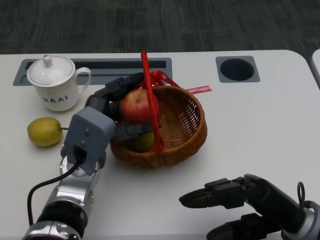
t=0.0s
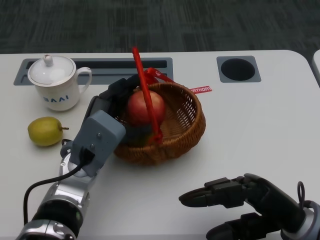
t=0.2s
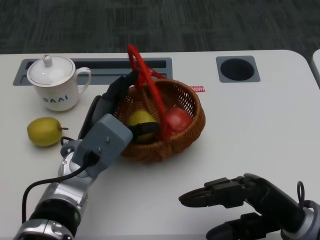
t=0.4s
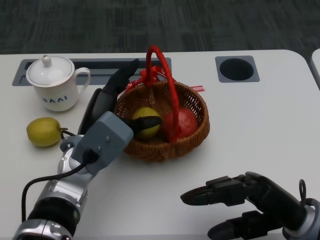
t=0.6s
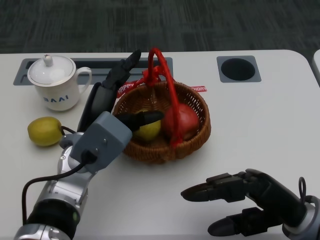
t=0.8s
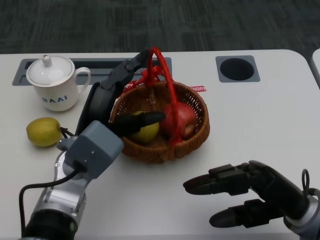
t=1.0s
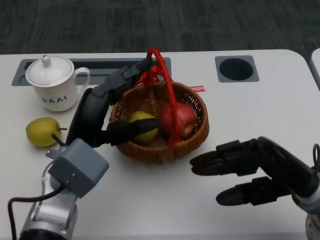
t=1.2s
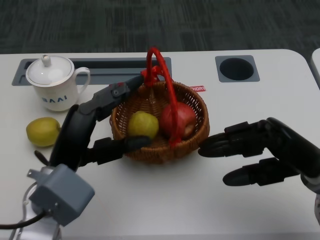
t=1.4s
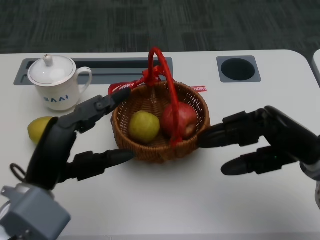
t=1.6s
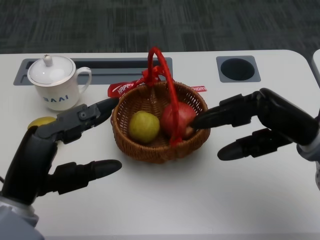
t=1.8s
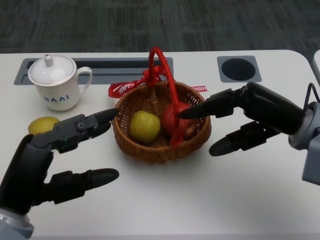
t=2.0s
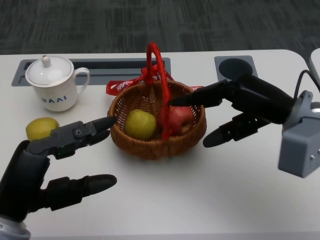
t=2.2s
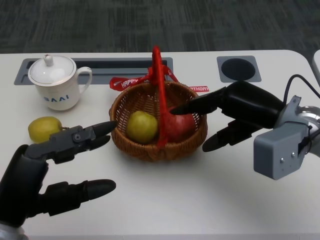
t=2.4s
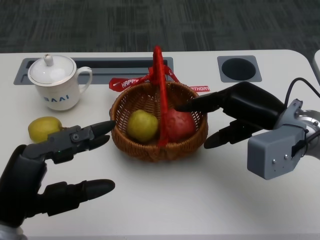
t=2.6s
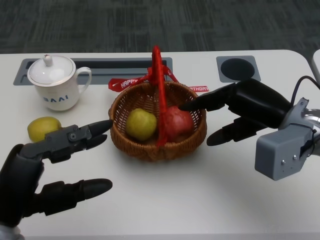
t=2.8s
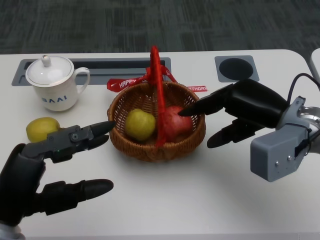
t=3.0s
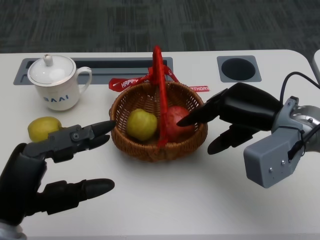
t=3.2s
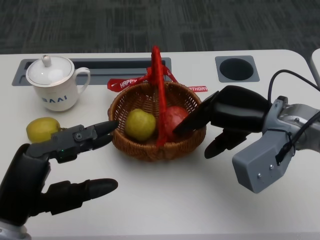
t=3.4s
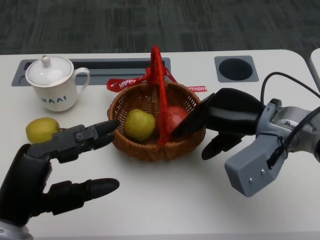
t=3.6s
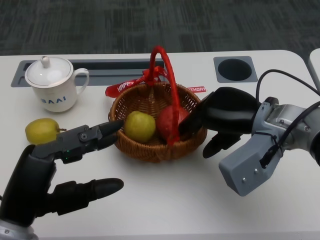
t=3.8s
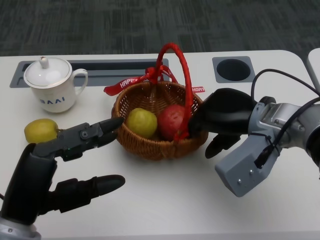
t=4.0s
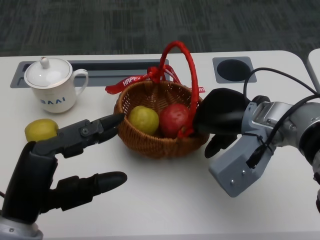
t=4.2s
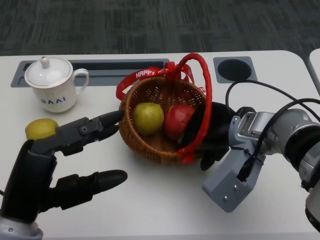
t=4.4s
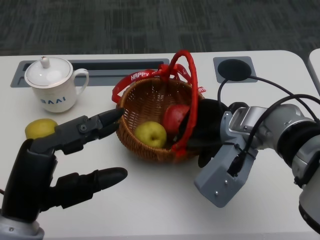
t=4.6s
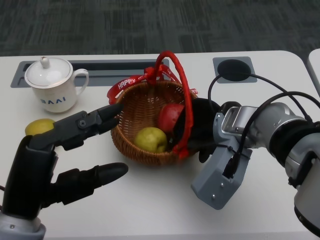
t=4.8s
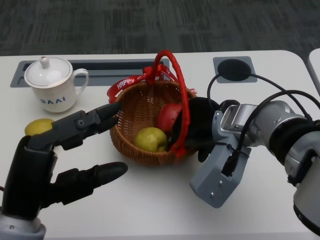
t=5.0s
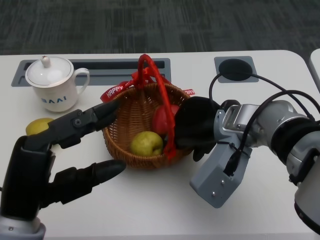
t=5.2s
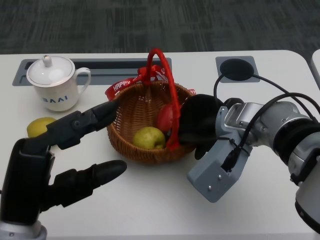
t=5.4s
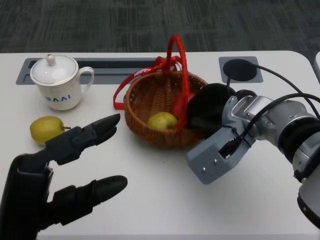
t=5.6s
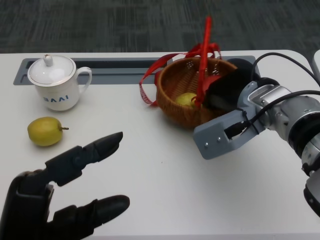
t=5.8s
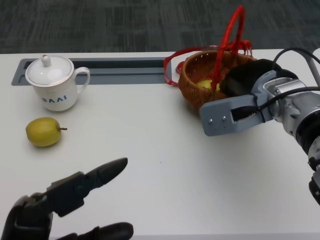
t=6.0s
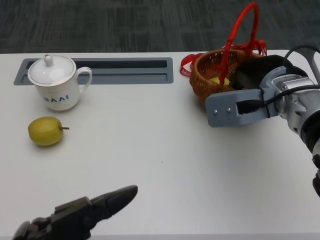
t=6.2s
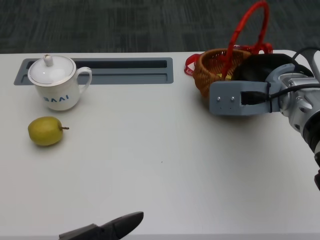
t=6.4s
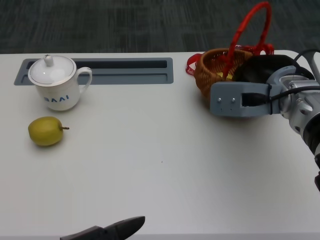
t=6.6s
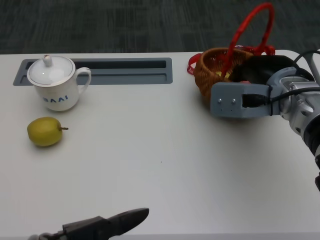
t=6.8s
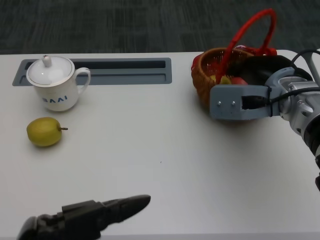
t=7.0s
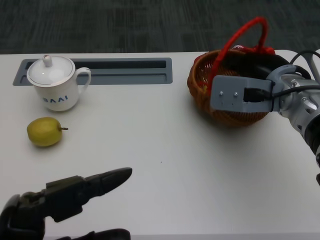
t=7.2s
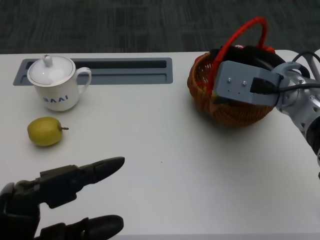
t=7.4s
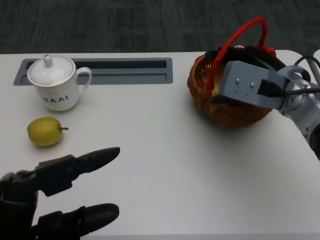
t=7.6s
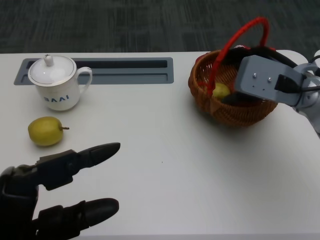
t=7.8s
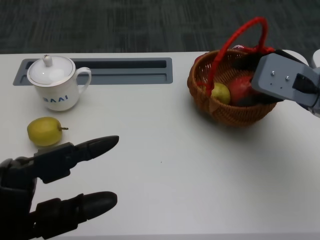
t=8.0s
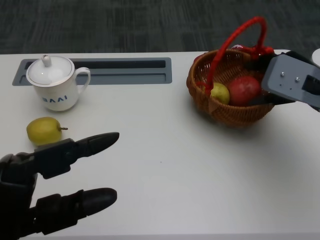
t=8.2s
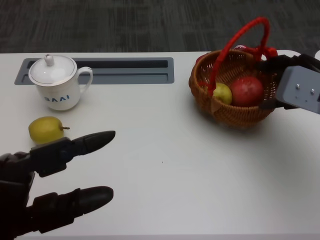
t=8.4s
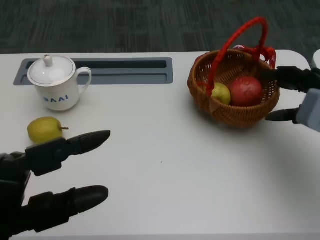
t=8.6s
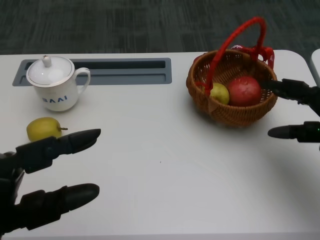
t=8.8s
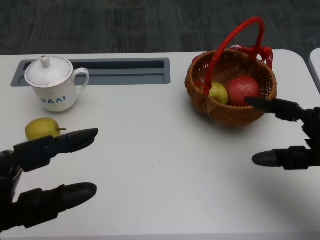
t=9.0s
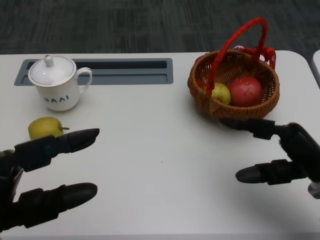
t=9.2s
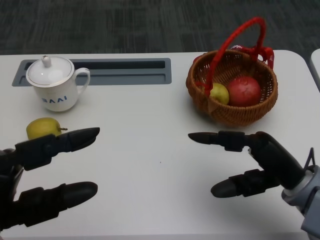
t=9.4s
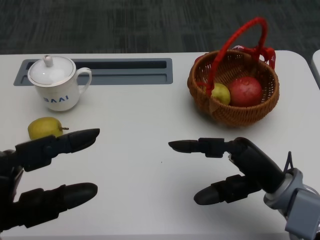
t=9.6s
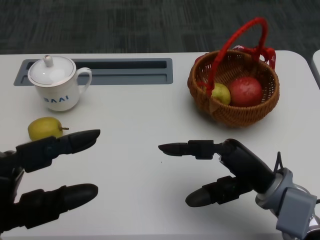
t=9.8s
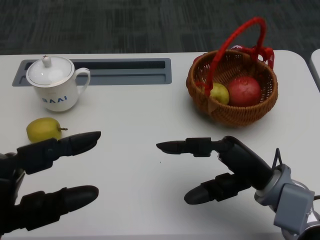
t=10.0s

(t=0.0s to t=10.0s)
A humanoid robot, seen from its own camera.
Step, t=0.0s - t=2.8s: Grasp the basket with the right gripper.
Step, t=3.0s - t=5.0s: Move the basket to the front of the table with the right gripper.
t=0.0s - t=1.4s: The left hand heads backward, covering some 5 cm; the right hand goes approximately 5 cm forward.
t=1.4s - t=2.8s: The right hand travels forward by some 5 cm, while the left hand travels backward and to the left by some 10 cm.
t=2.8s - t=4.2s: The right hand ends up some 5 cm from where it was.
t=7.2s - t=8.6s: The left hand changes place by some 5 cm; the right hand travels to the right by approximately 10 cm.
t=8.6s - t=10.0s: The right hand travels to the left, backward and downward by about 15 cm.
